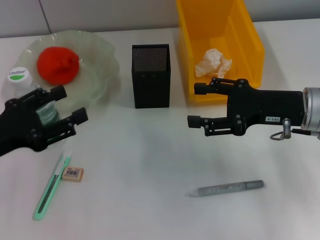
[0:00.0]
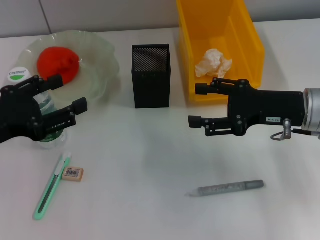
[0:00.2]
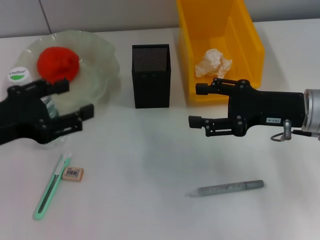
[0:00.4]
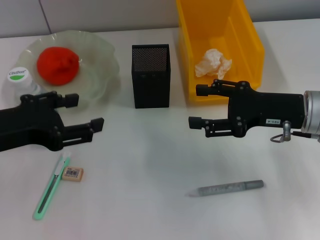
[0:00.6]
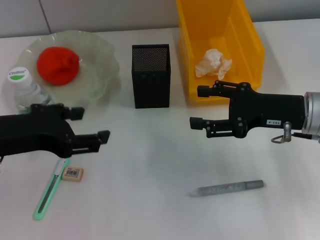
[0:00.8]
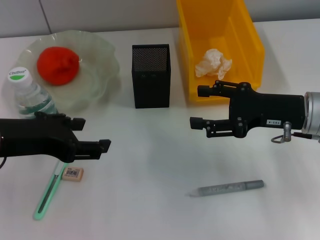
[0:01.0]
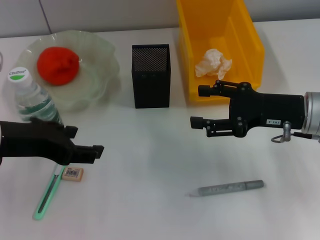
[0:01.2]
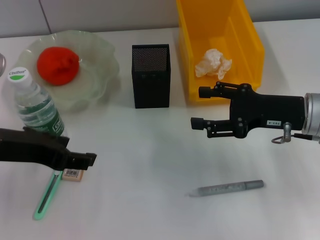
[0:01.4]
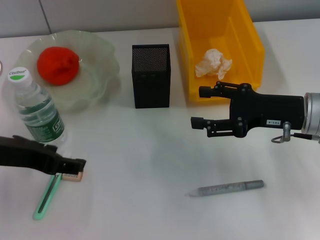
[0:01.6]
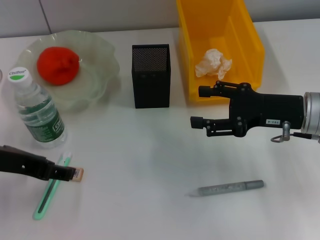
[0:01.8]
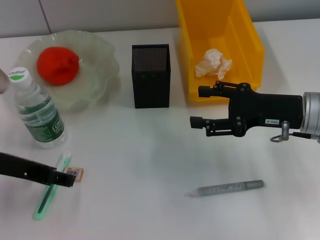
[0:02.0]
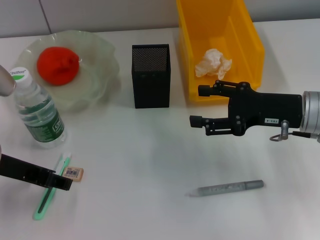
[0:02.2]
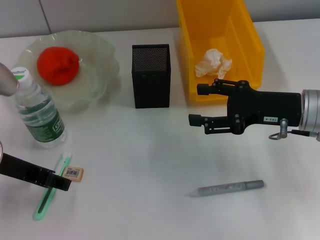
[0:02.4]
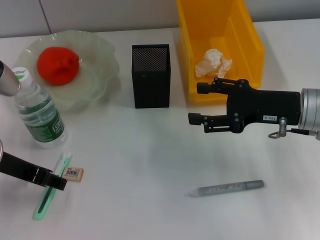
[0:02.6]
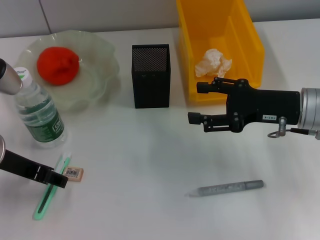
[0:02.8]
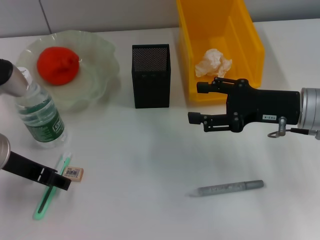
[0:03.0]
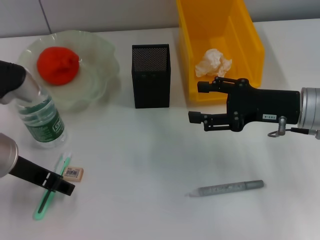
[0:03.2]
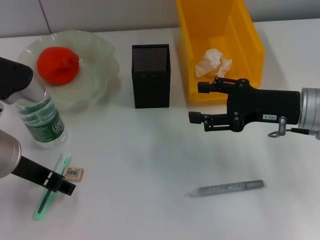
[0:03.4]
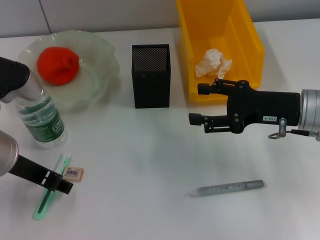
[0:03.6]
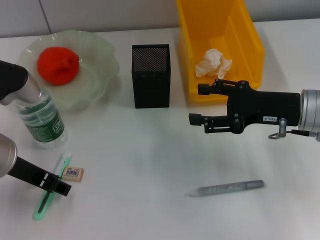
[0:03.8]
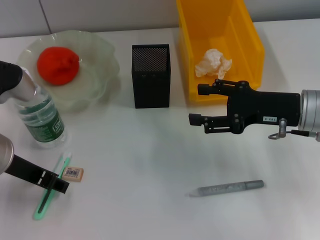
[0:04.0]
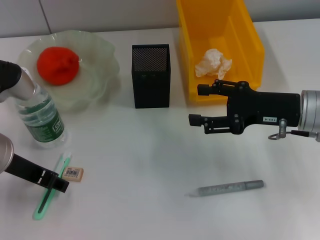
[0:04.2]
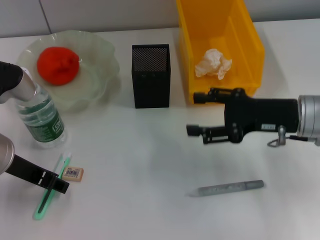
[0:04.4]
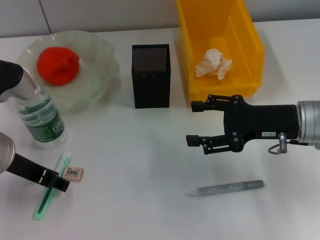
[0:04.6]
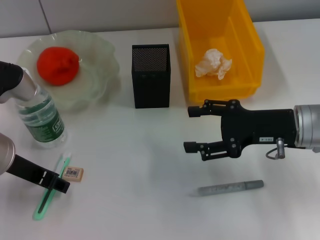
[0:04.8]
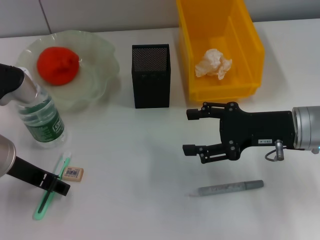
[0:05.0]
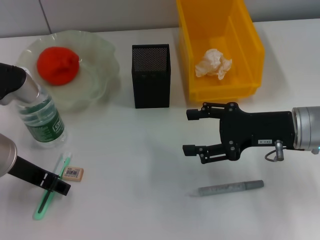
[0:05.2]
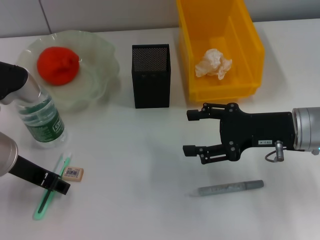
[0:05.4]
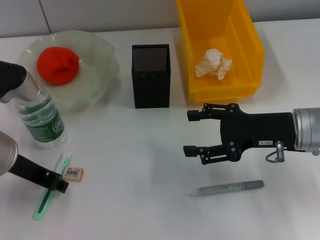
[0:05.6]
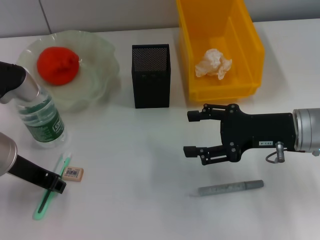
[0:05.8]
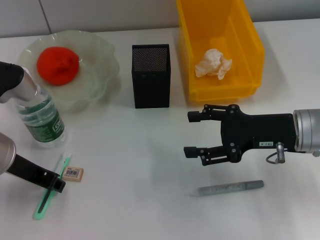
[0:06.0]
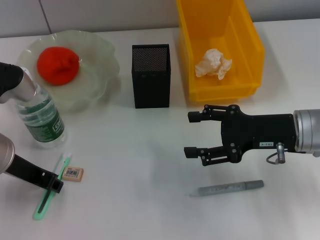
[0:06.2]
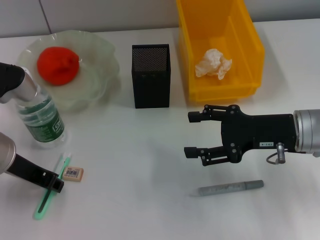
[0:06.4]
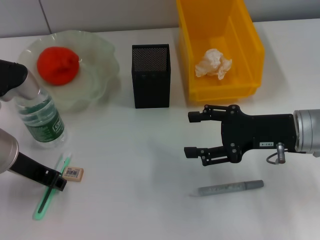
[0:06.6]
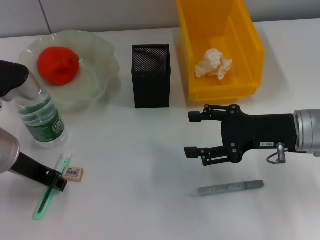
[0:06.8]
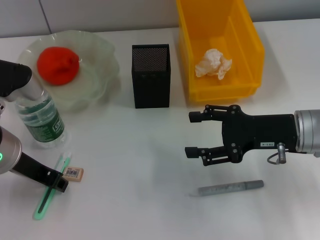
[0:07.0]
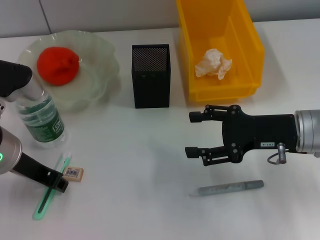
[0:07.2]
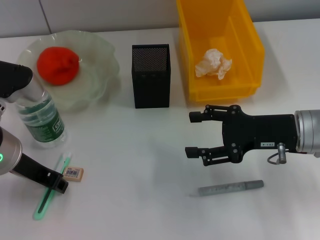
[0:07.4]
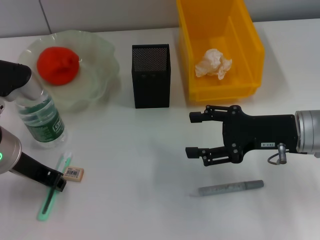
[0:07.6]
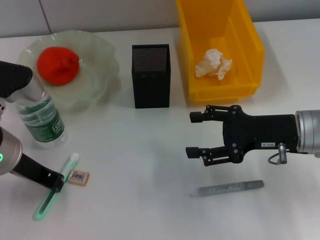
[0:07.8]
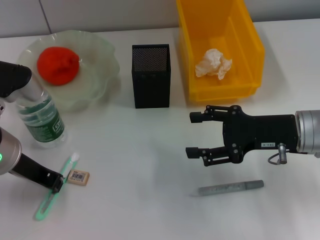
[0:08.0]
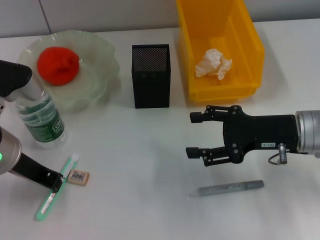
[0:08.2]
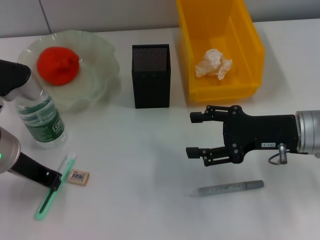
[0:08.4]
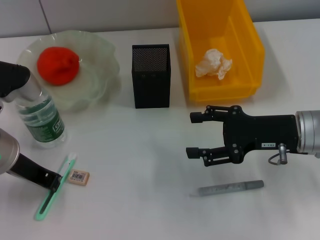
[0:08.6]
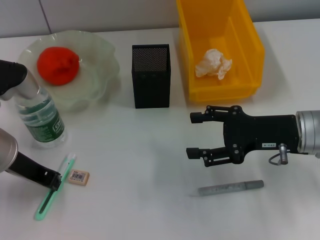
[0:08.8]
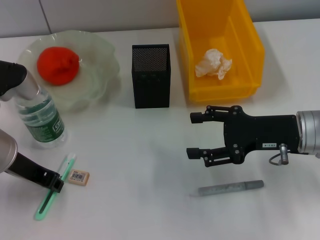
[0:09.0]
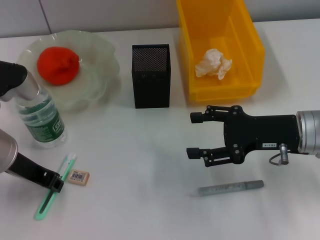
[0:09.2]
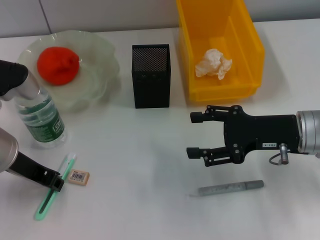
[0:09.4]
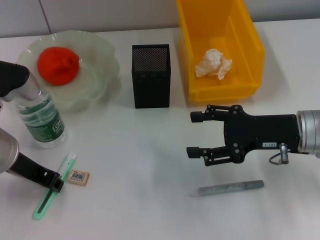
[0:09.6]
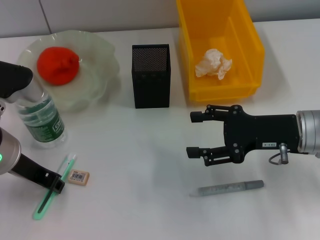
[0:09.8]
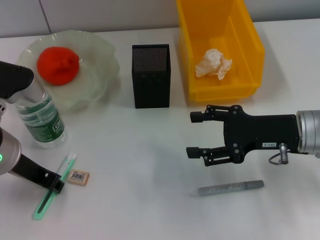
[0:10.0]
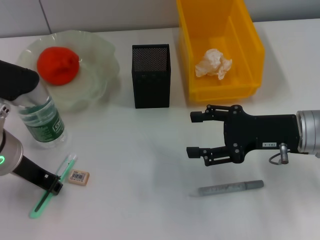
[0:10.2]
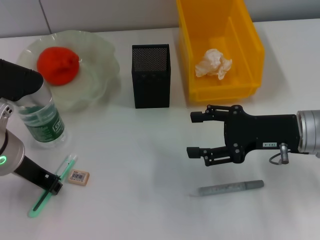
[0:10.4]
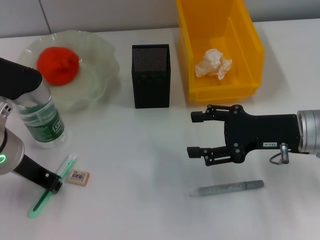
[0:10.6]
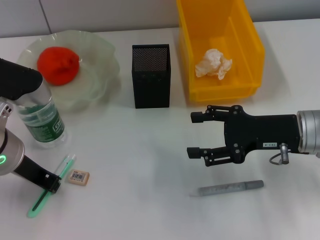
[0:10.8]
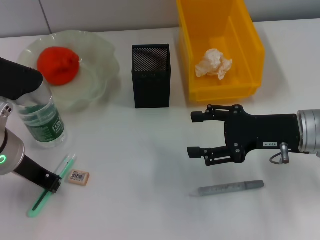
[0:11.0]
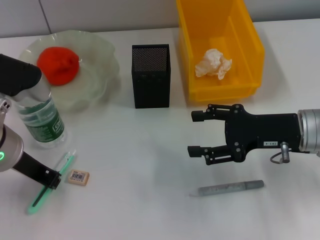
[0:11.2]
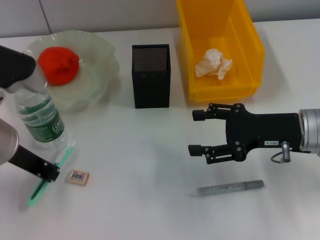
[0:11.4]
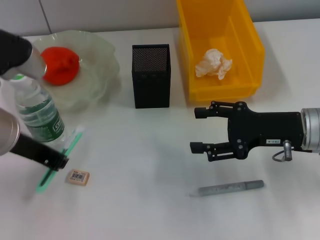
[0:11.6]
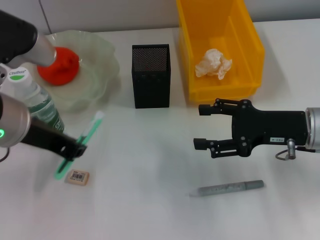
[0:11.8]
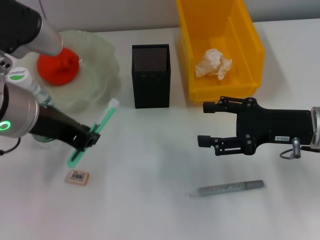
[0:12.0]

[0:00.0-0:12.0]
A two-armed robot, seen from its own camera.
Step, 0:00.0 to 0:10.6: Grab the blue utility knife with the left hand.
0:00.0 to 0:01.6: The left gripper heads upward and to the right, covering some 10 cm.
0:01.6 to 0:04.4: There are only small adjustments of the grippers.
0:04.4 to 0:06.0: The left gripper closes.
0:06.0 to 0:09.0: The two grippers keep their place.
0:09.0 to 0:10.4: The grippers make only small movements.
0:10.4 to 0:12.0: The left gripper travels upward by roughly 5 cm.

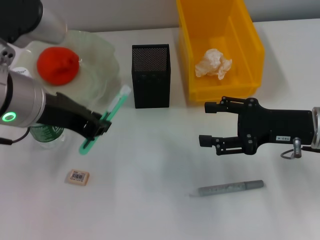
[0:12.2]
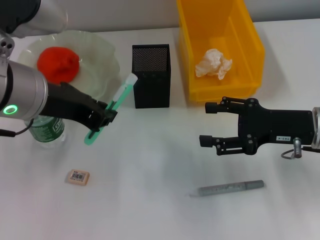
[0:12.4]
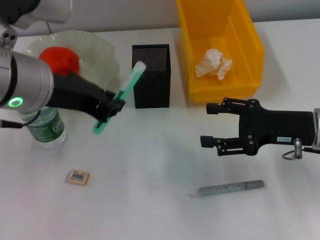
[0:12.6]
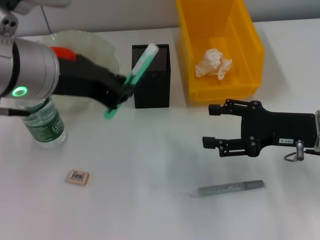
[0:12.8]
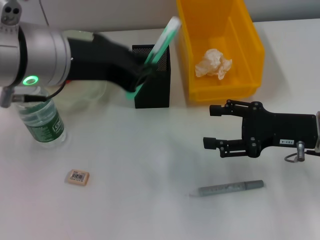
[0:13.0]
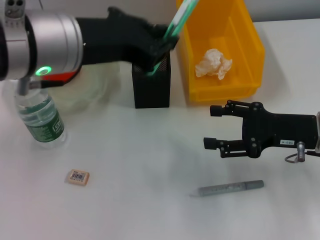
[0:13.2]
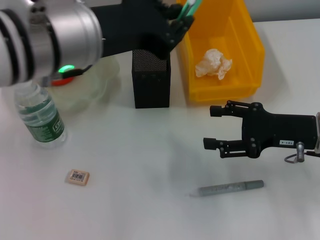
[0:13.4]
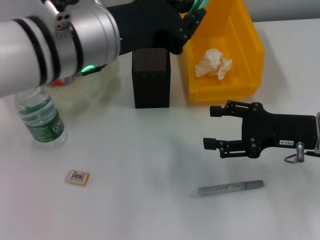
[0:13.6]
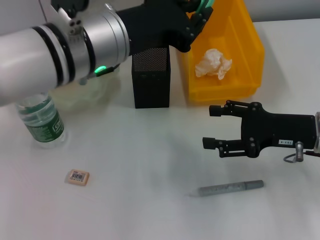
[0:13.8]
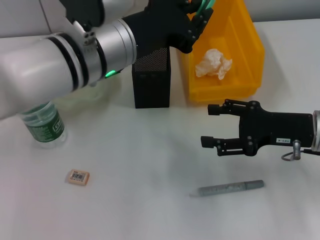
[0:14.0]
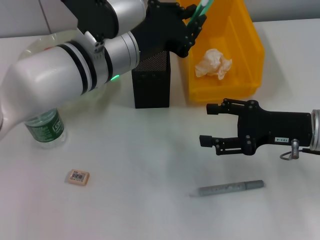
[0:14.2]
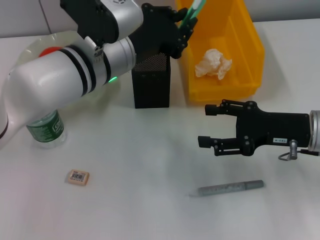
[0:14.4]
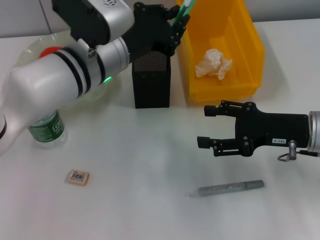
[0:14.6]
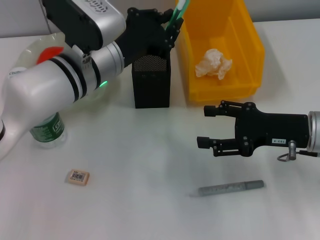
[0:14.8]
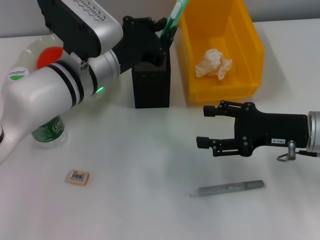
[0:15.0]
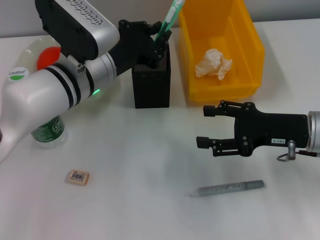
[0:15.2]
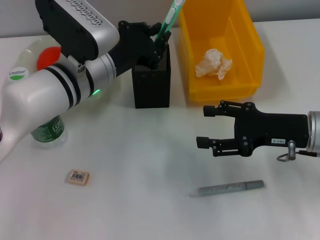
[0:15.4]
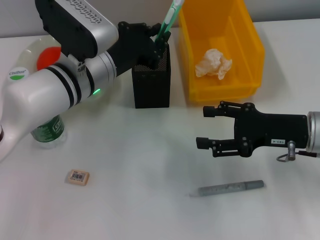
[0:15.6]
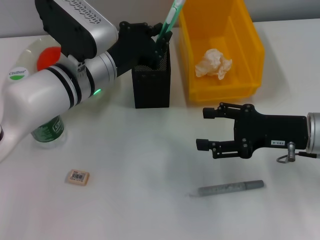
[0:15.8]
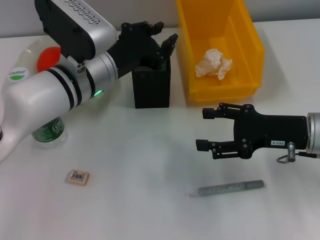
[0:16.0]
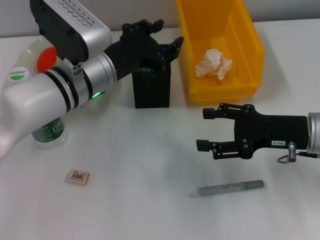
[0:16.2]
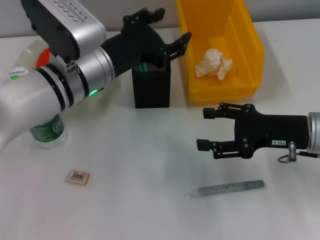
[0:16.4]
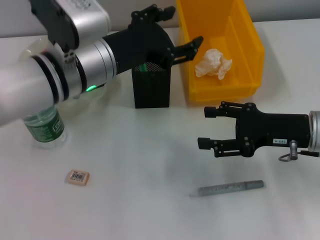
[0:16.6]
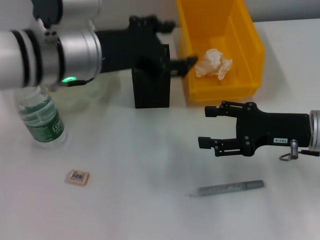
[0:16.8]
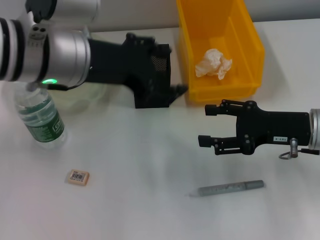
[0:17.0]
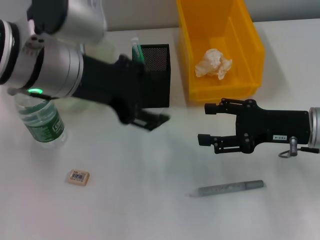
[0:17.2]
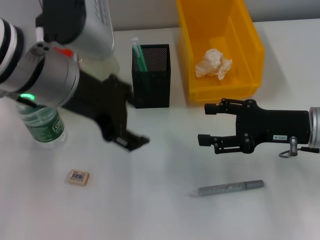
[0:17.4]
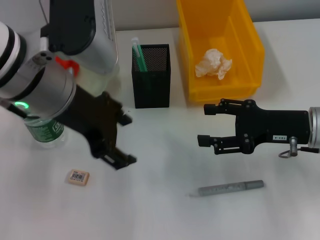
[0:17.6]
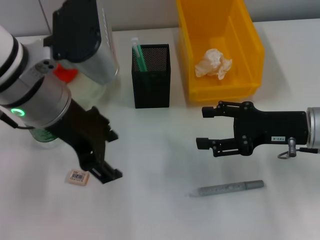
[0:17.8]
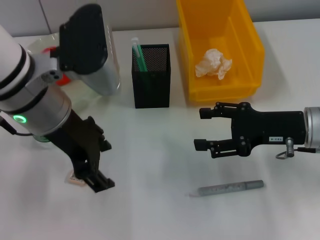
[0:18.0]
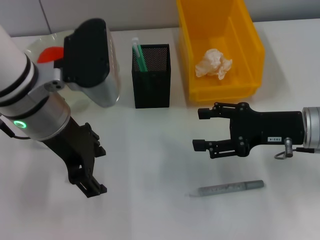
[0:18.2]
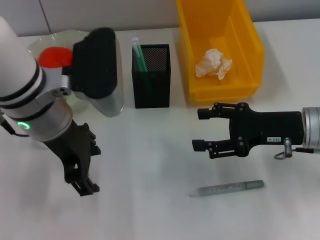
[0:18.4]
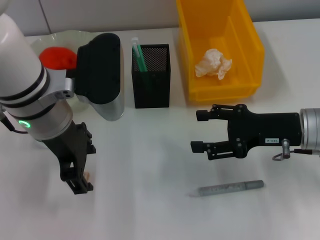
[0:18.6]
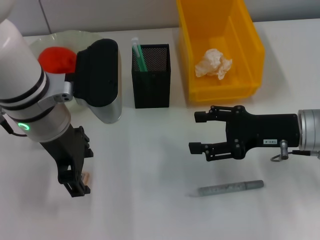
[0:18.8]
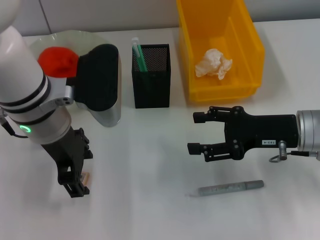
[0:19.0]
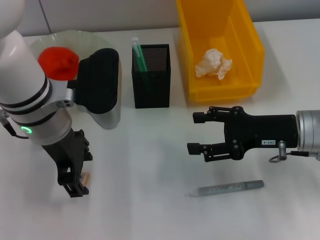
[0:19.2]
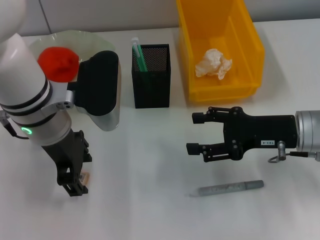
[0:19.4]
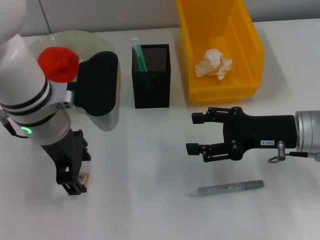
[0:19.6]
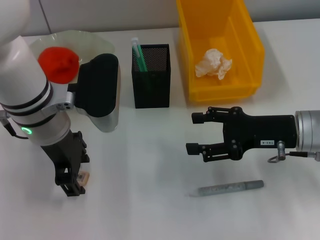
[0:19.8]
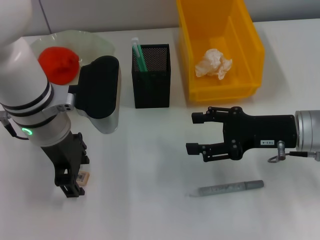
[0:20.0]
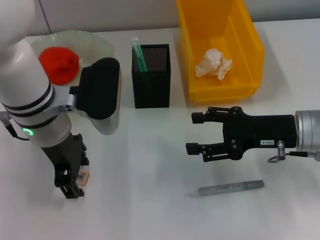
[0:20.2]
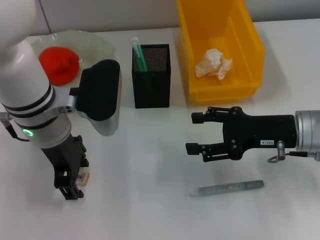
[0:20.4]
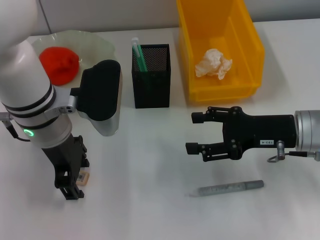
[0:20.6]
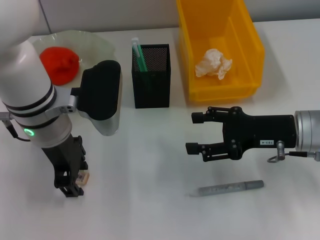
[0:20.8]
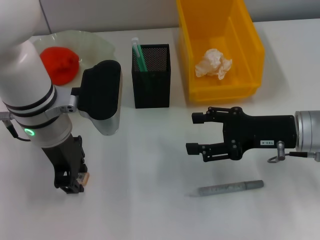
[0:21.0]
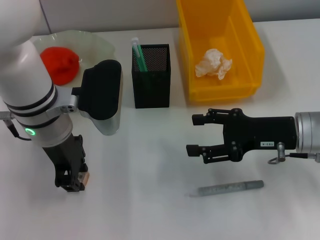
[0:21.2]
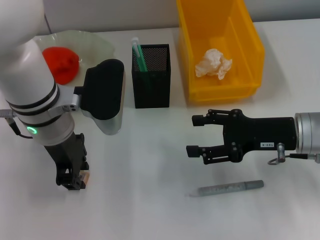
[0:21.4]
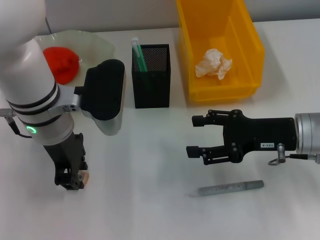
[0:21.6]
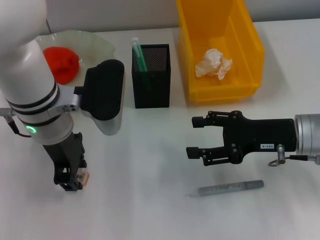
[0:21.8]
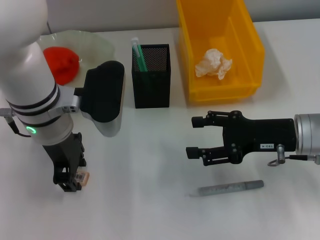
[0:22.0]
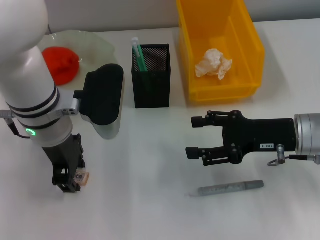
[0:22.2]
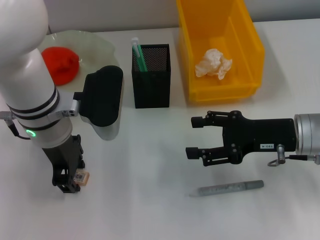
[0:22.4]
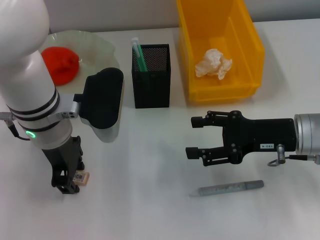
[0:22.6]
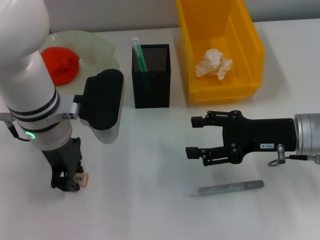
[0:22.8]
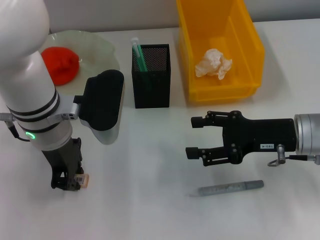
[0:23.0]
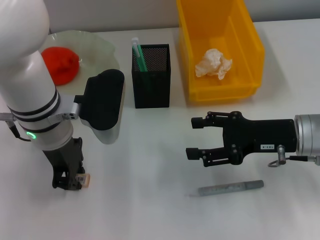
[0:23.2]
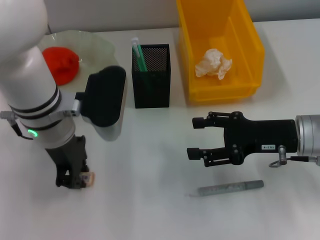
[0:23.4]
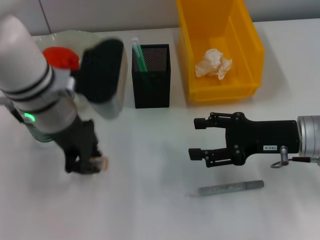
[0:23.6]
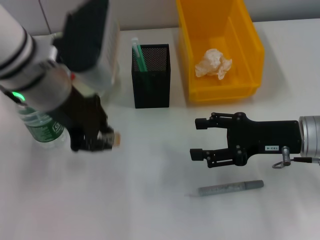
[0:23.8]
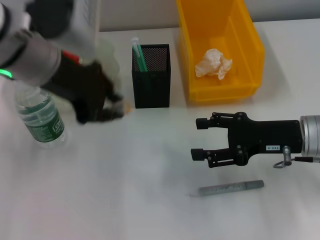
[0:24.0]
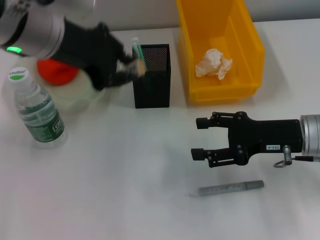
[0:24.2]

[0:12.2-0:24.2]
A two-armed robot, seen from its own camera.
Step, 0:12.2 to 0:16.0: Place the blue utility knife into the pen holder with the left hand.
Step, 0:16.2 to 0:23.0: Grab the eraser with the left hand.
0:12.2 to 0:13.8: The left gripper shifts some 10 cm to the right.
0:13.8 to 0:15.2: The left gripper travels downward by approximately 10 cm.
0:15.2 to 0:16.6: The left gripper opens up.
0:16.6 to 0:18.2: The left gripper shifts by about 5 cm.
0:18.2 to 0:19.8: The grippers move only a little.
0:19.8 to 0:21.2: The two grippers keep their place.
0:21.2 to 0:22.6: The two grippers keep their place.
0:22.6 to 0:24.2: The left gripper is displaced upward by about 10 cm, and closes.
